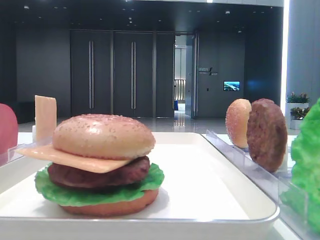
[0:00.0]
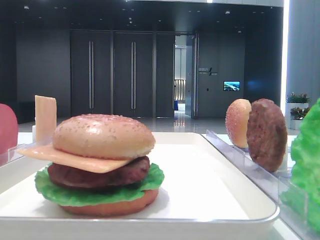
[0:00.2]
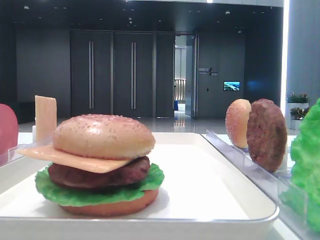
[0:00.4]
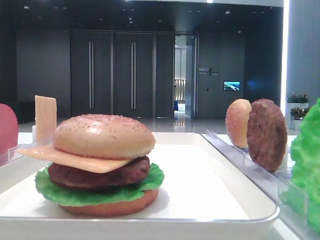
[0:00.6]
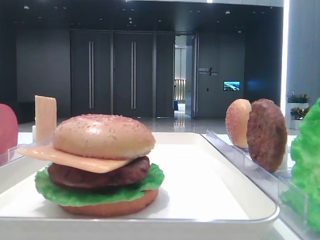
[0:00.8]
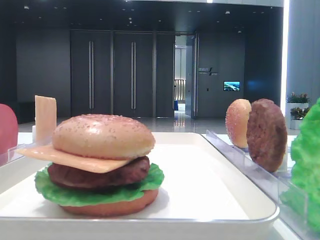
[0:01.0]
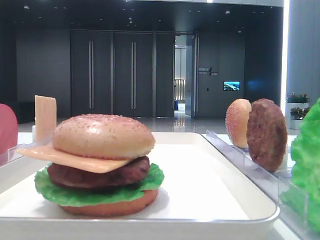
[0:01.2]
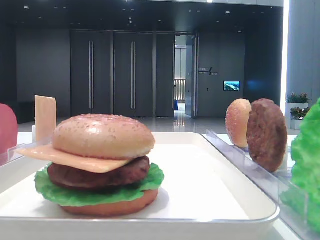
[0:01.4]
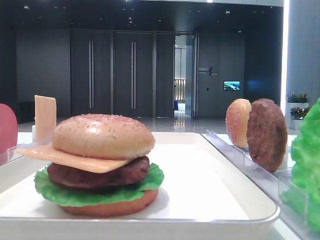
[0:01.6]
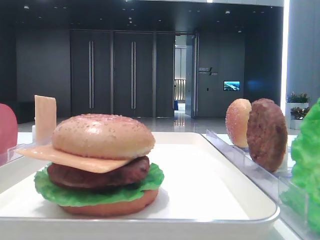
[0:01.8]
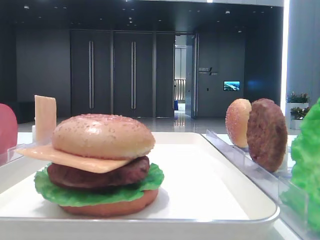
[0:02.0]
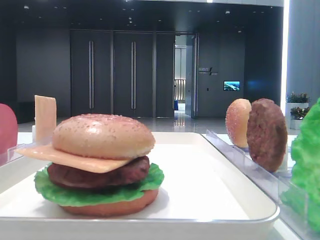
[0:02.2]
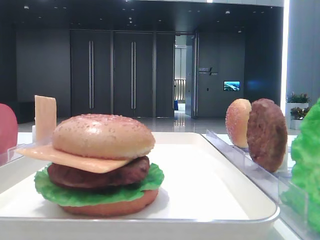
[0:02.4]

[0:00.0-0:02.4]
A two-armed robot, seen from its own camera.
0:01.2 to 0:02.4: Both grippers stay about where they are.

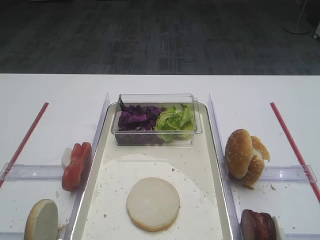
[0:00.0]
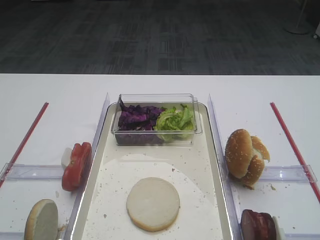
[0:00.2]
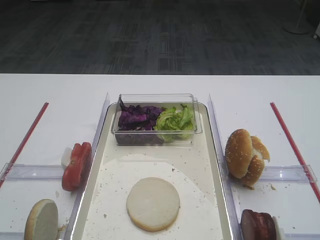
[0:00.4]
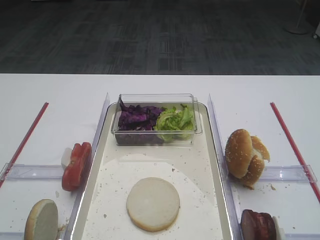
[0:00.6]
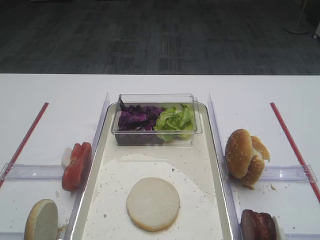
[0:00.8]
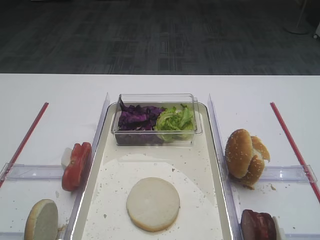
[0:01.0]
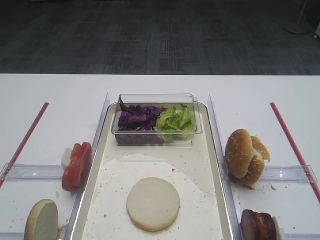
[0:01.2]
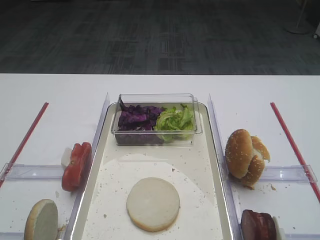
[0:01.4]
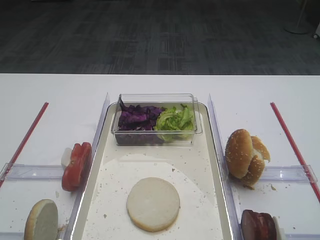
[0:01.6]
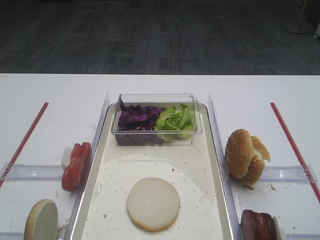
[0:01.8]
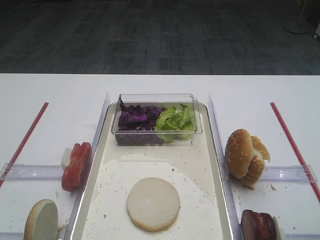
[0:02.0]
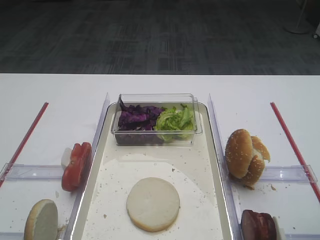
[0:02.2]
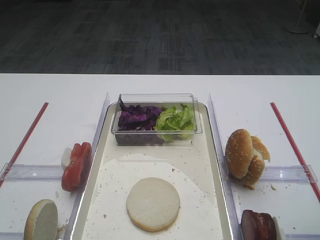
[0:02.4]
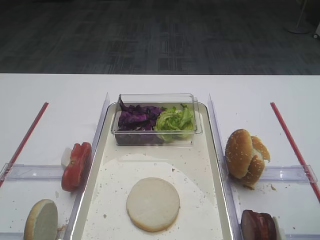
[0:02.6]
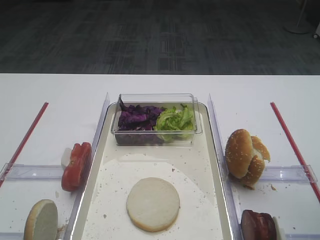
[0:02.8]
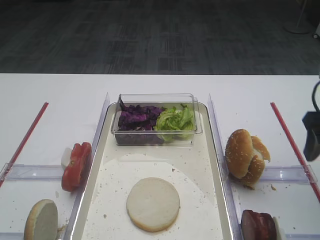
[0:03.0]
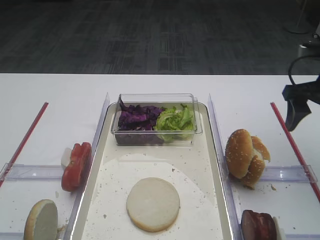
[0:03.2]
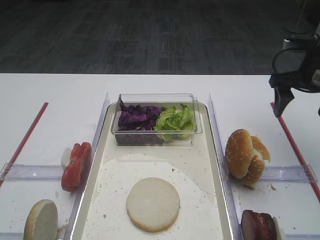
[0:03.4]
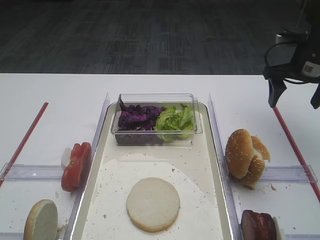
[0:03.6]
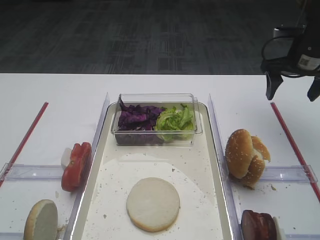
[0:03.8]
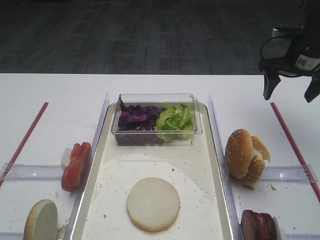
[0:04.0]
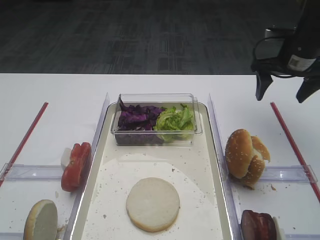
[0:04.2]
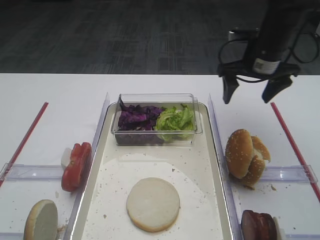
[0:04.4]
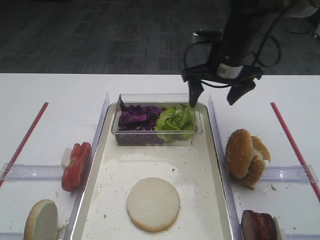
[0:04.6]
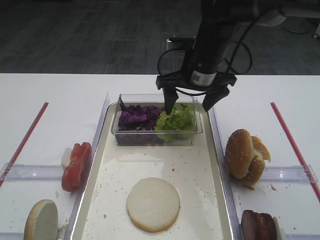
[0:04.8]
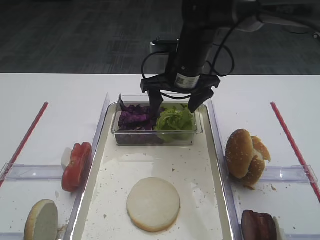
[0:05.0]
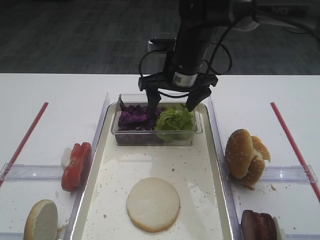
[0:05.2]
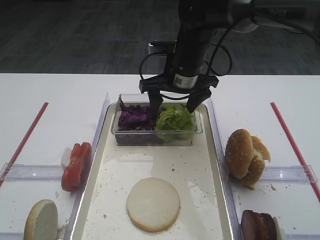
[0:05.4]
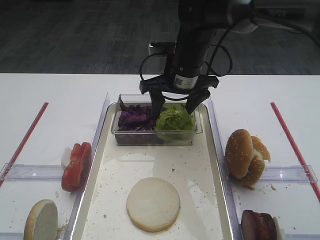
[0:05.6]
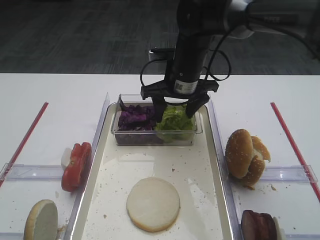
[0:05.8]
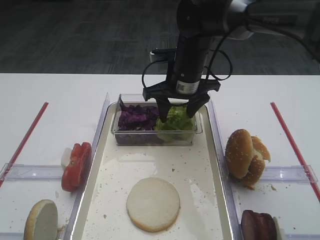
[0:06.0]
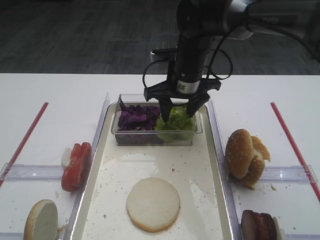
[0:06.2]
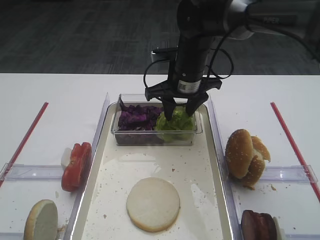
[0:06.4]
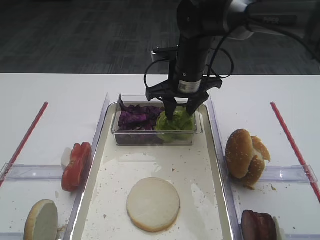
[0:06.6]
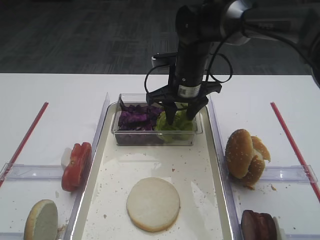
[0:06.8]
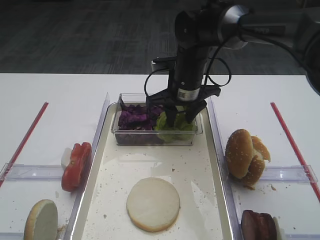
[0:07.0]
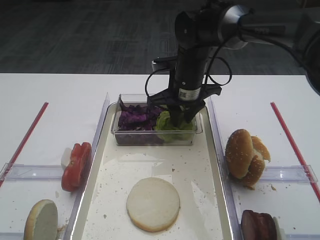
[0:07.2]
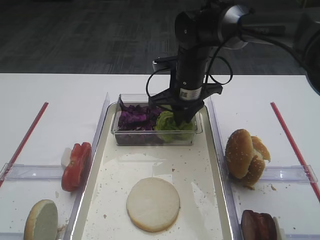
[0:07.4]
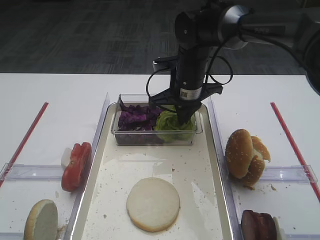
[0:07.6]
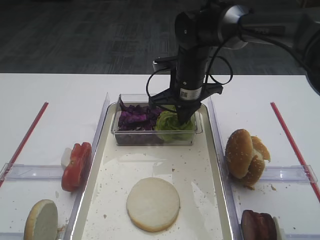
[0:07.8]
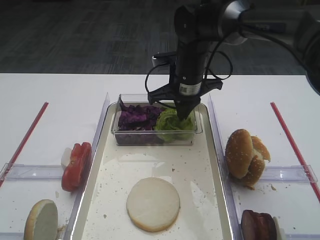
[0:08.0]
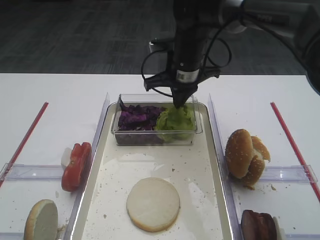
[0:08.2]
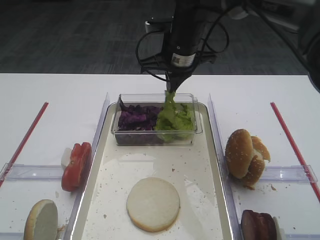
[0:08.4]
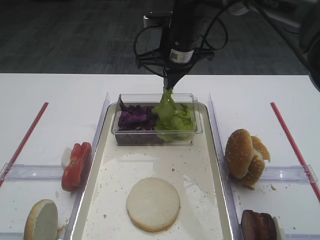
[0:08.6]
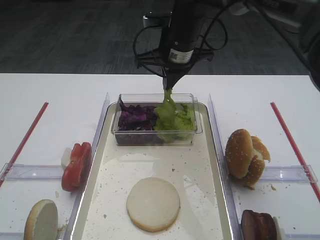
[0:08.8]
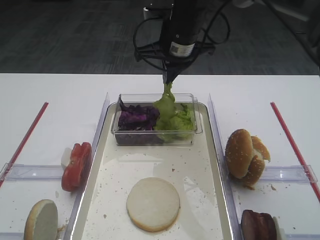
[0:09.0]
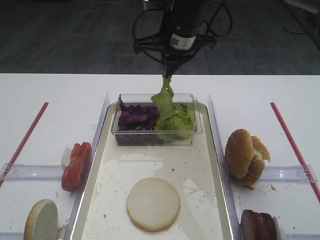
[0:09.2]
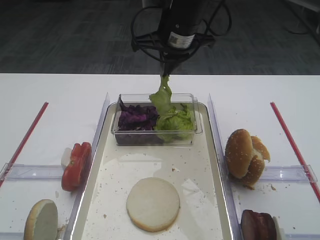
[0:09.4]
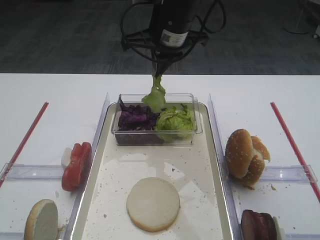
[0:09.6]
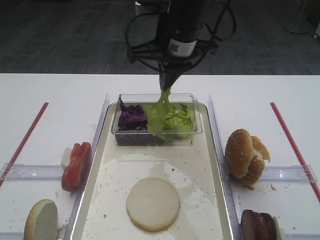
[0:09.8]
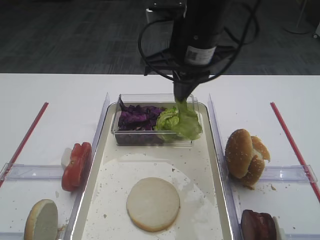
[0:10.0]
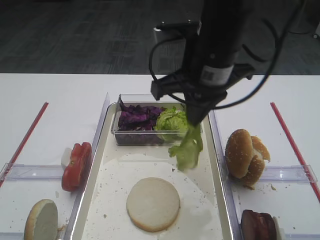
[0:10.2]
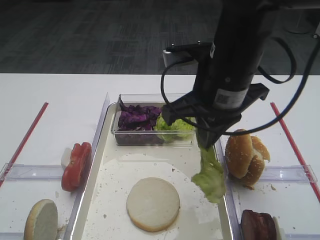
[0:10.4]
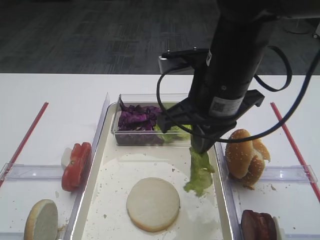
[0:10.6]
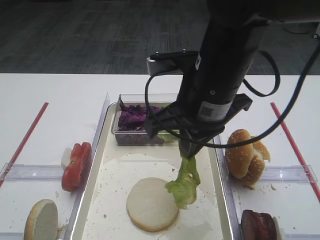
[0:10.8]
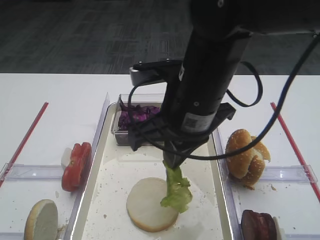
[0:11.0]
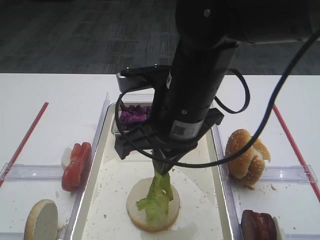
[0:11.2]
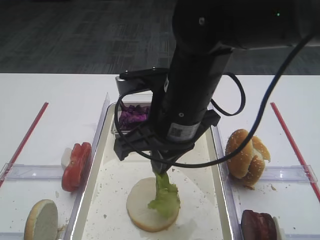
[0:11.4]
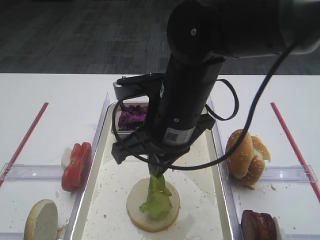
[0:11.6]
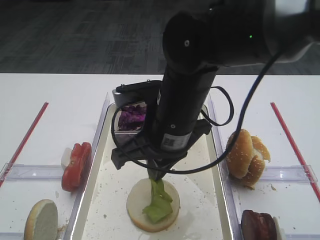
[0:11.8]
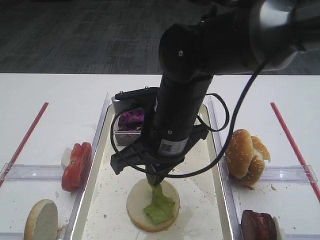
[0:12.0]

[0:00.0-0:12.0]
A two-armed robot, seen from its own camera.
Step, 0:00.0 to 0:09.2: Pick up the lettuce leaf with the right gripper.
0:01.6 to 0:03.0: The right gripper goes some 20 cm forward.
0:03.0 to 0:04.4: The right gripper moves forward and to the left, some 20 cm.
0:04.4 to 0:06.0: The right gripper heads to the left, covering approximately 15 cm.
0:06.0 to 0:07.6: The right gripper closes.
0:07.6 to 0:09.0: The right gripper moves upward, roughly 10 cm.
0:09.0 to 0:10.4: The right gripper goes approximately 15 cm backward.
0:10.4 to 0:12.0: The right gripper heads to the left and downward, covering about 10 cm.

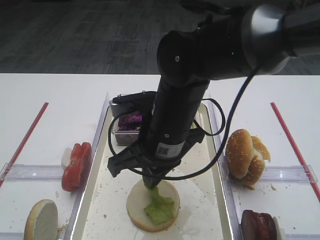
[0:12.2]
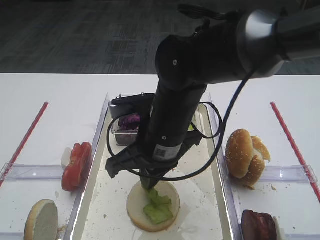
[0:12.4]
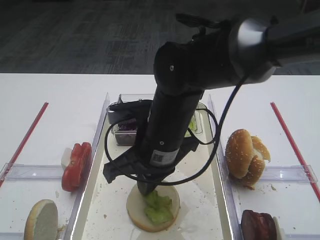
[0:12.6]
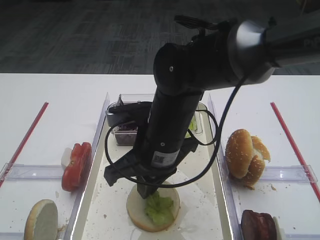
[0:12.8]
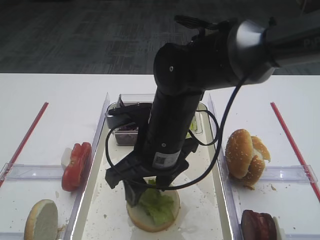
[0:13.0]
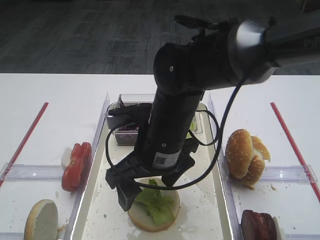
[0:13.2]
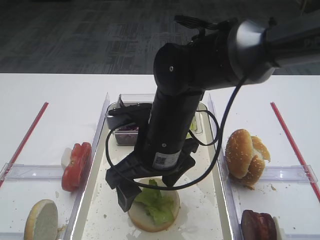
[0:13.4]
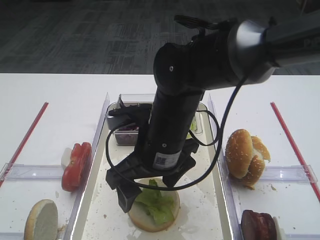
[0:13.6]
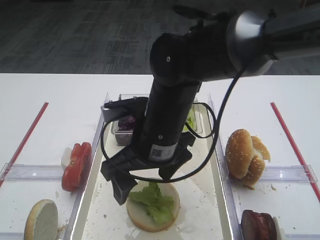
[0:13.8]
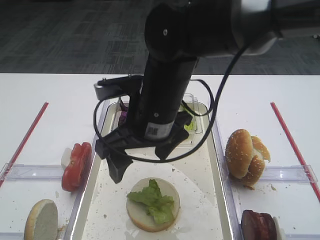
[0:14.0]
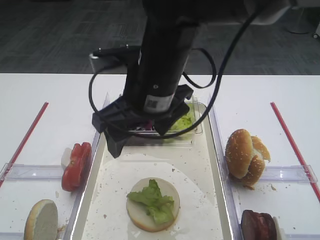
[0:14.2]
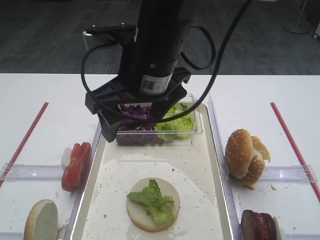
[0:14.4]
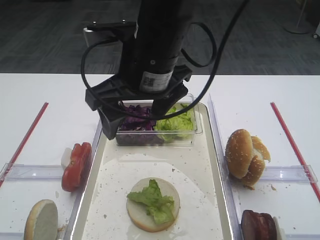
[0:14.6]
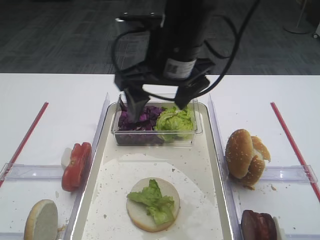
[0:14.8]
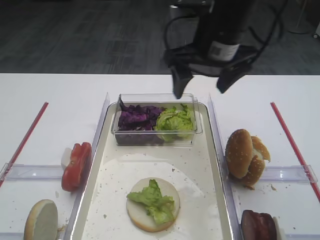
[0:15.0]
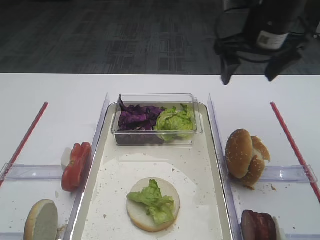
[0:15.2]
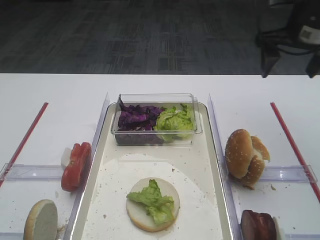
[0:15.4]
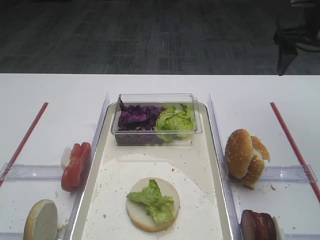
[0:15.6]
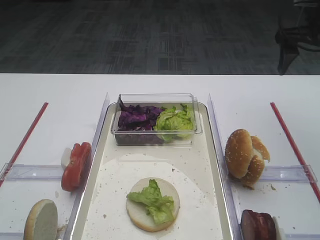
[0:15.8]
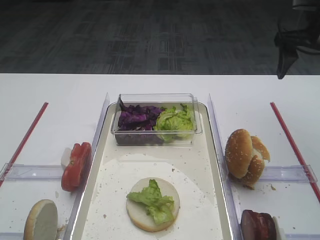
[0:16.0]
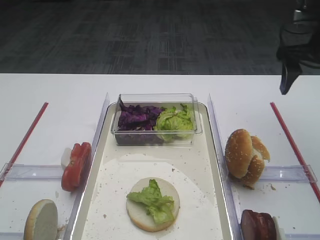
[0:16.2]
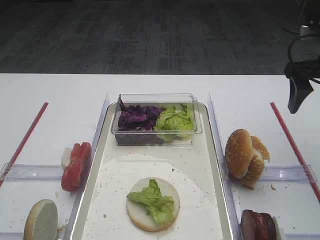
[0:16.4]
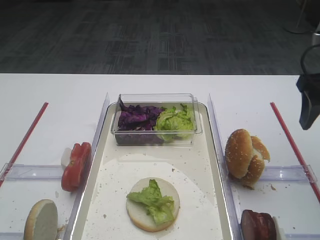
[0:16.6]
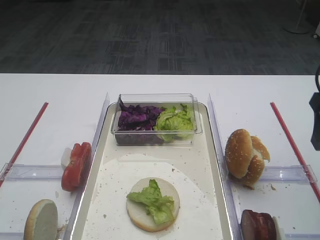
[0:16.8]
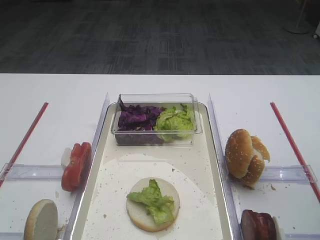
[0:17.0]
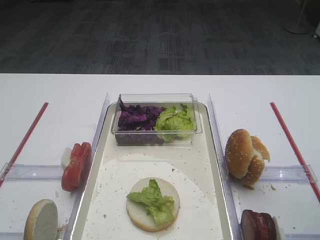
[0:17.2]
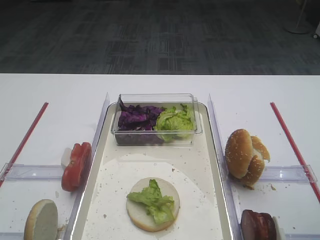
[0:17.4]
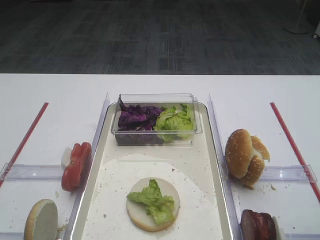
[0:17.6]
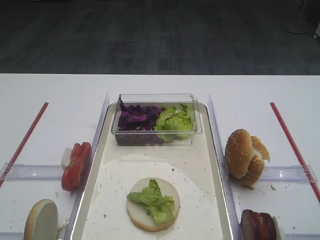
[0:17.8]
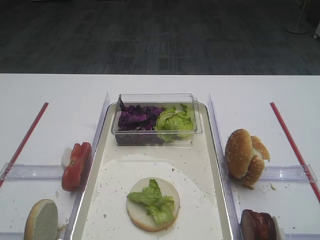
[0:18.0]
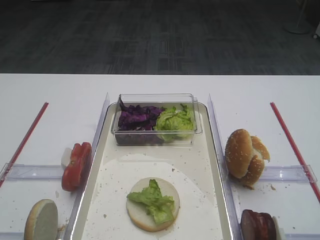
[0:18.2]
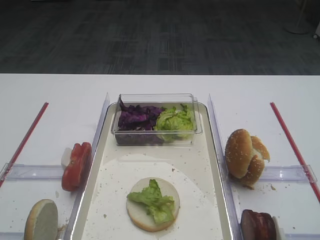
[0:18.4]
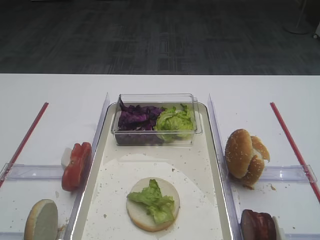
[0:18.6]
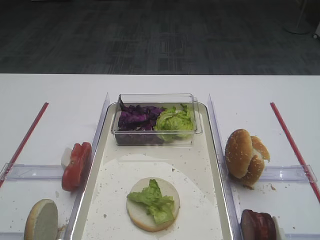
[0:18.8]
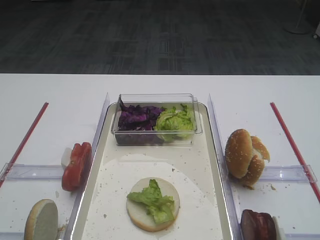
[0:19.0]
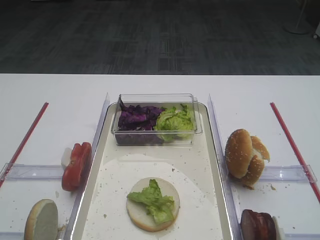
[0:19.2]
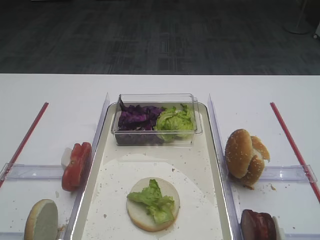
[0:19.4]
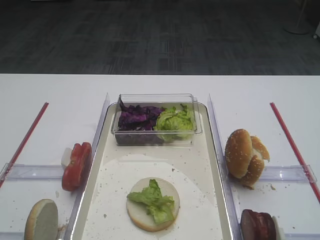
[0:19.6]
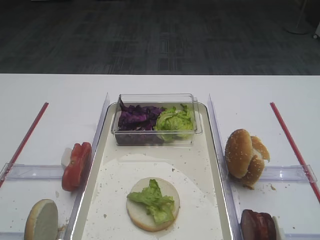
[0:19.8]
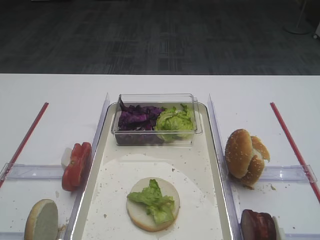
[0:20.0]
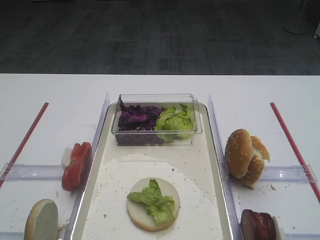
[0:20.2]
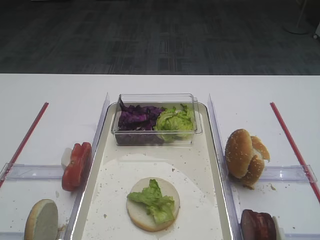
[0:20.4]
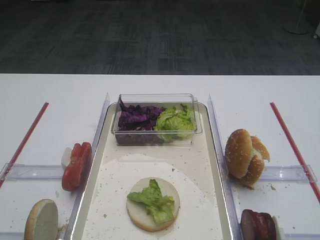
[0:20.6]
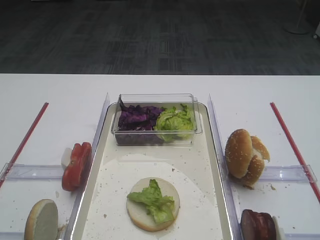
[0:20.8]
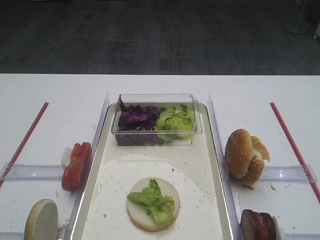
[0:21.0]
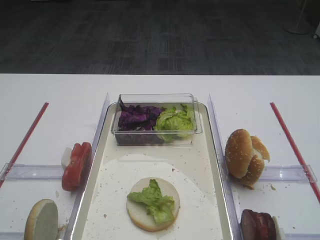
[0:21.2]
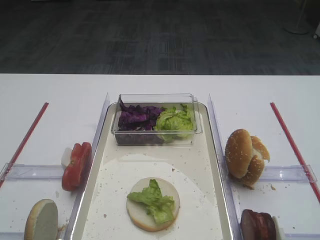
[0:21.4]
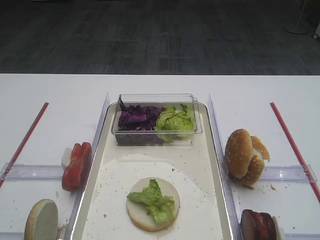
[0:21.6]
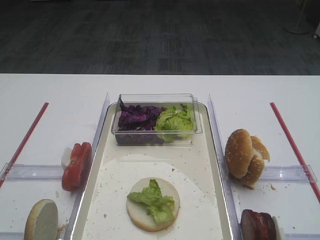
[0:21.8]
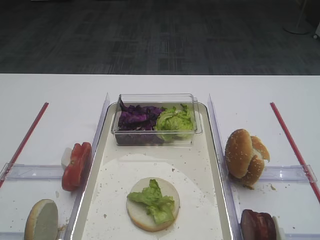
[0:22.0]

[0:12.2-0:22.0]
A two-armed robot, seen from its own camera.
0:12.2 to 0:13.6: The right gripper opens its fingers.
0:13.6 to 0:15.0: The right gripper travels upward, forward and to the right by about 20 cm.
0:15.0 to 0:16.4: The right gripper travels to the right by about 20 cm.
0:16.4 to 0:17.8: The right gripper moves backward, roughly 25 cm.
0:19.2 to 0:22.0: Both grippers stay about where they are.
